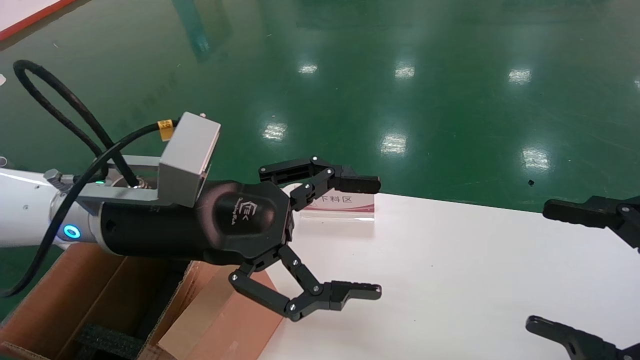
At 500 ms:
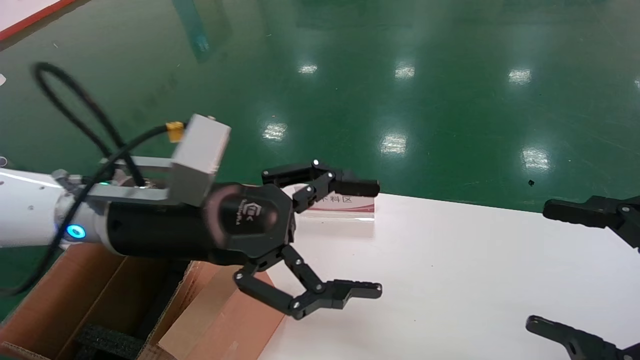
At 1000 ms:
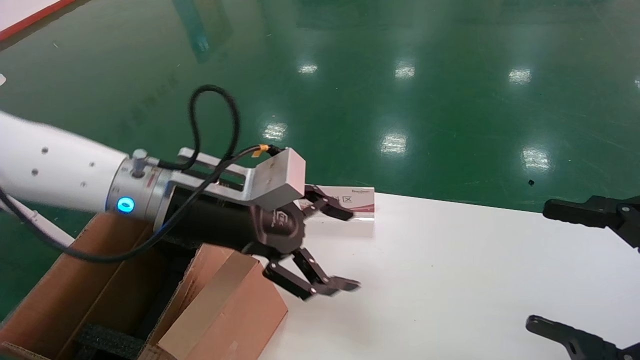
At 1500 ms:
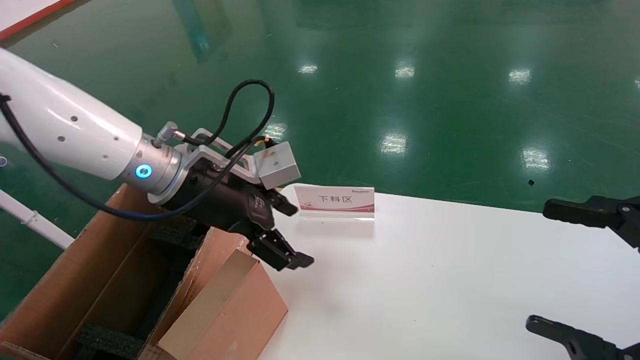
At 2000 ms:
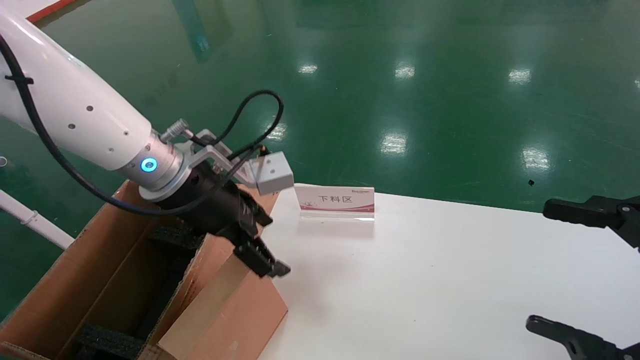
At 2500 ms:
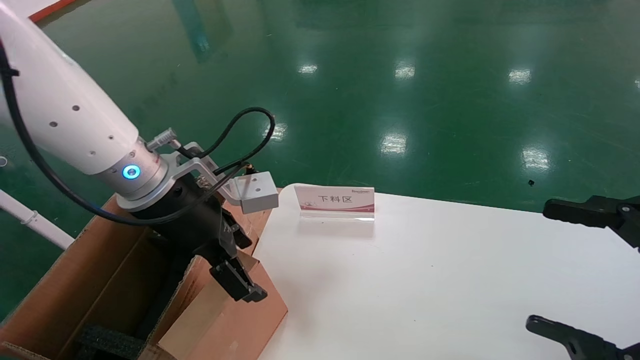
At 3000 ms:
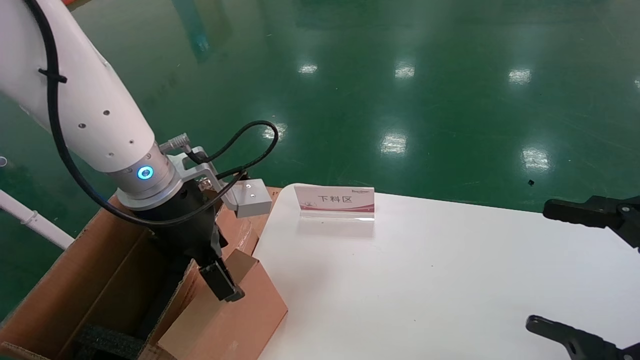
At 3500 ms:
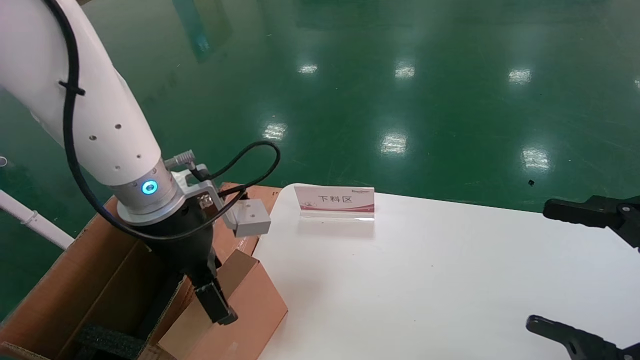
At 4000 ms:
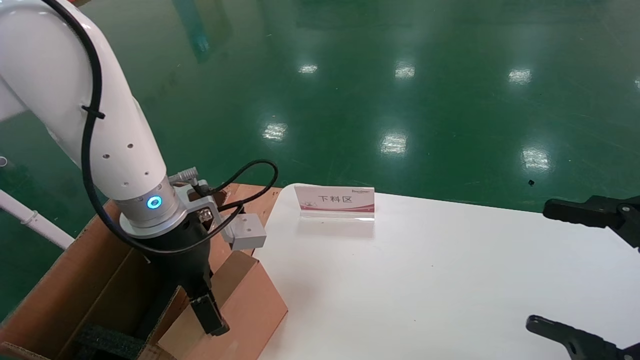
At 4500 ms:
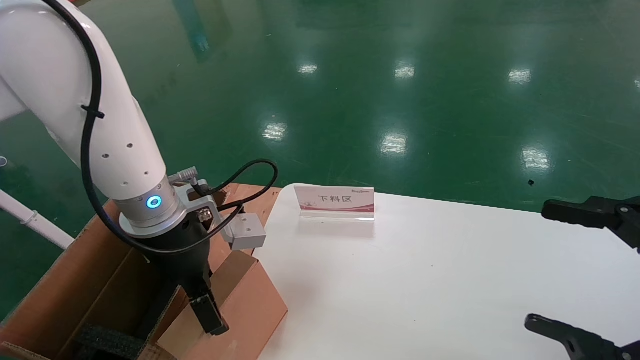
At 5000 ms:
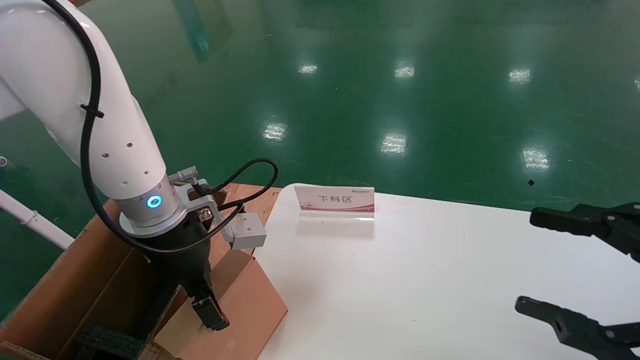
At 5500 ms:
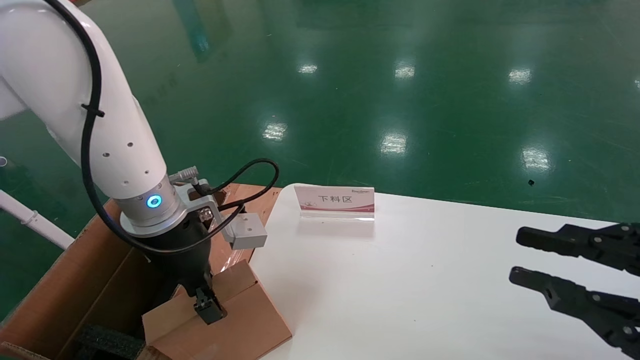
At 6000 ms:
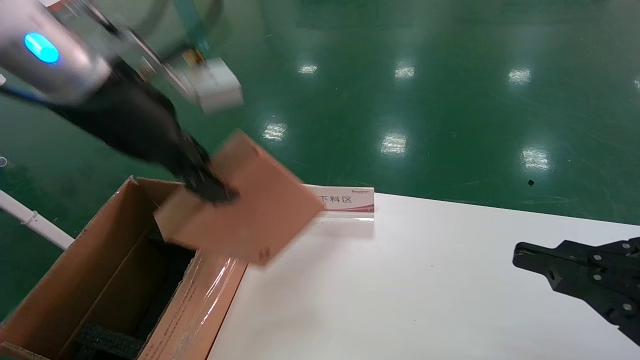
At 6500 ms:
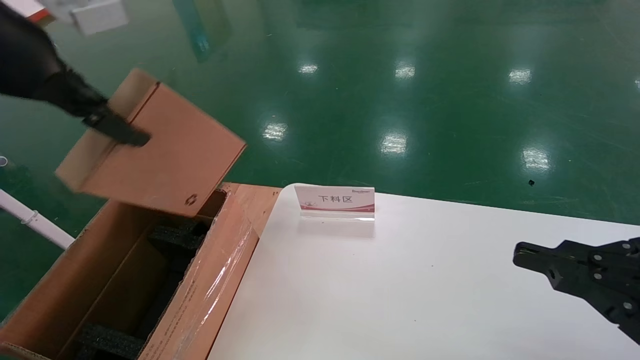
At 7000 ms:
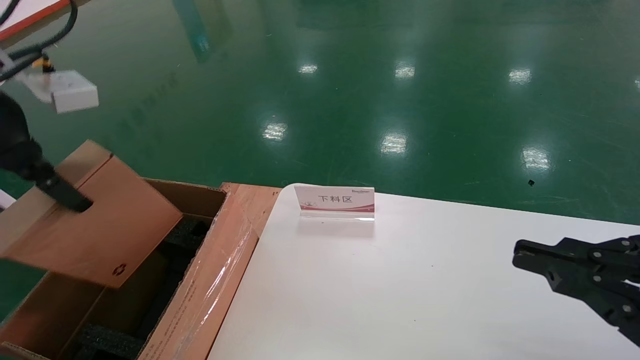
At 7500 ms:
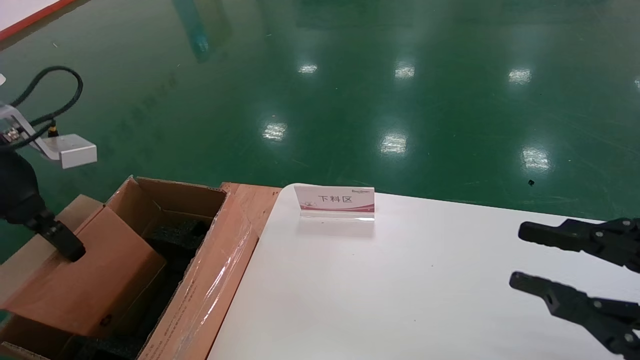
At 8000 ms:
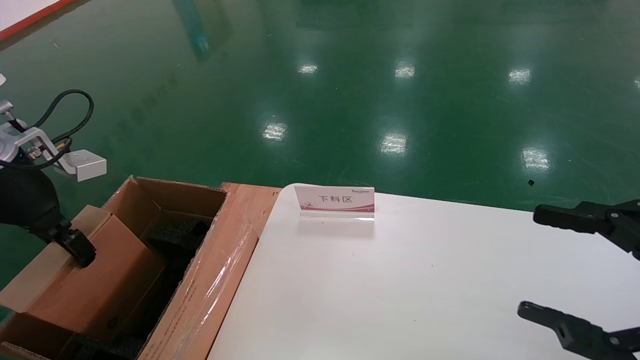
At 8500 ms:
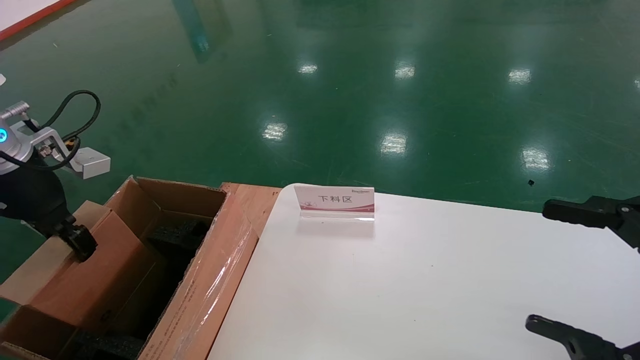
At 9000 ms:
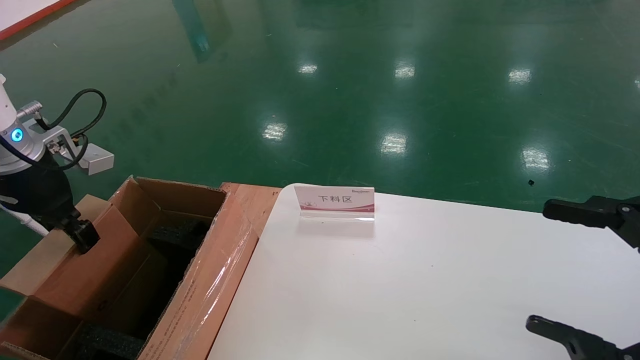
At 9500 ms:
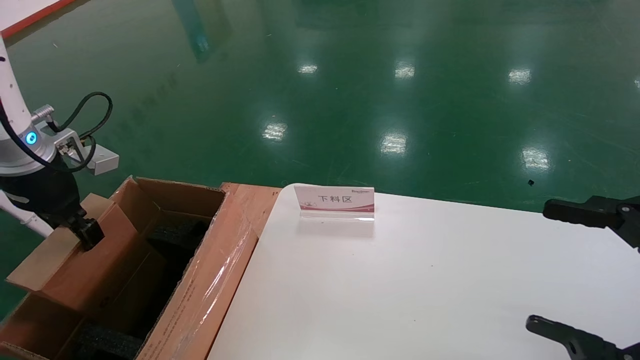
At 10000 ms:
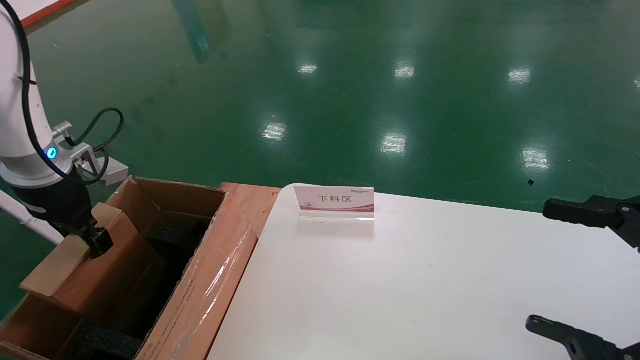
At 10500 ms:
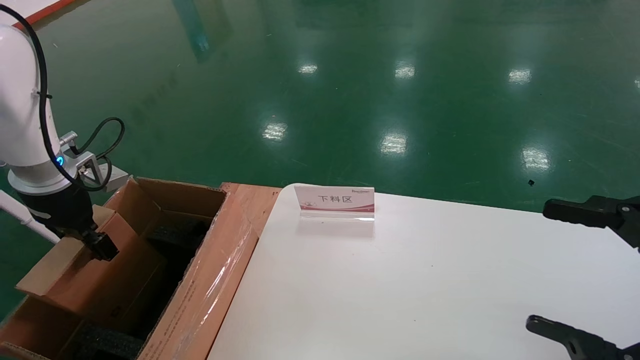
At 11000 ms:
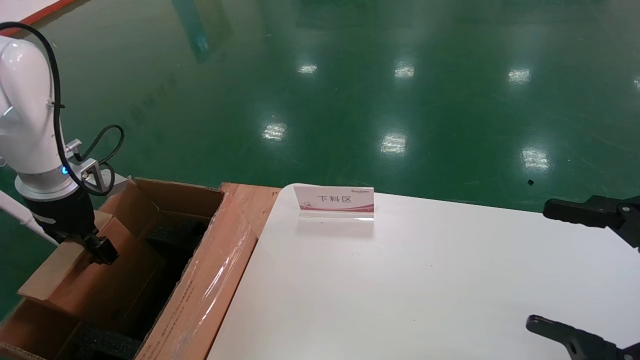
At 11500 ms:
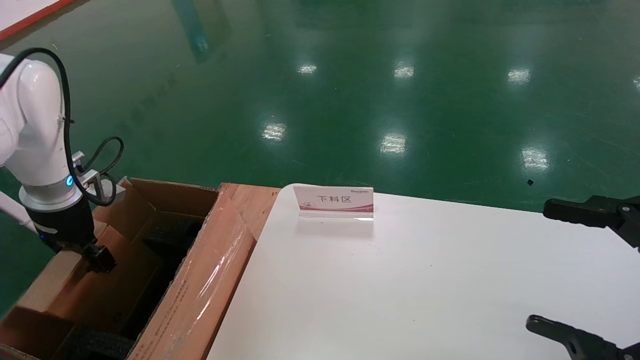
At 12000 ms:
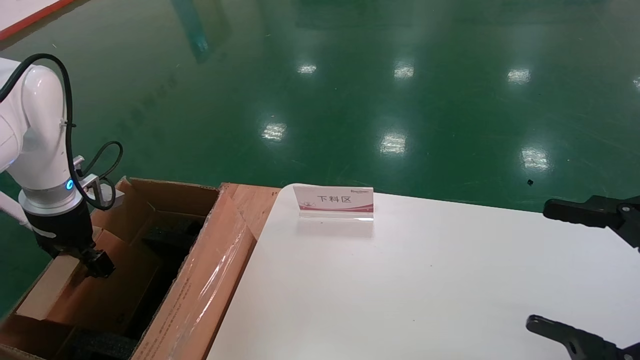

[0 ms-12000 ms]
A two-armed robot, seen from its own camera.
Task of the whole recording: pick up the small cardboard box and load it into the large cardboard box.
Step, 1000 ms to 5000 ms: Pick up the mouse and power cord box.
0 ms to 2000 ms: The left gripper is displaced forward by roughly 5 cm.
4000 ms to 6000 ms: The right gripper closes its fingers. Meanwhile the left gripper shifts roughly 15 cm upward, and closes its fingers.
6000 ms to 8000 ms: The right gripper opens up, while the left gripper moves to the left and downward, roughly 20 cm.
8000 ms to 10000 ms: The left gripper heads forward, covering approximately 5 cm.
10000 ms to 12000 ms: The left gripper shifts roughly 5 cm downward.

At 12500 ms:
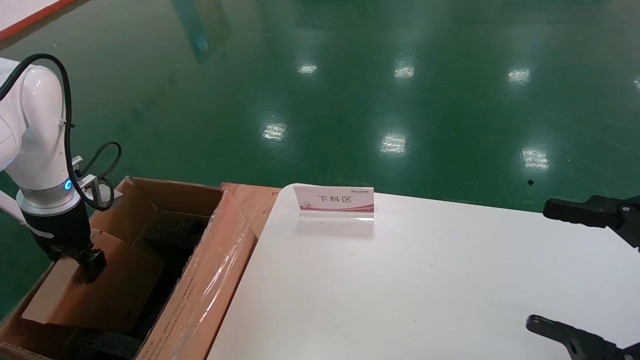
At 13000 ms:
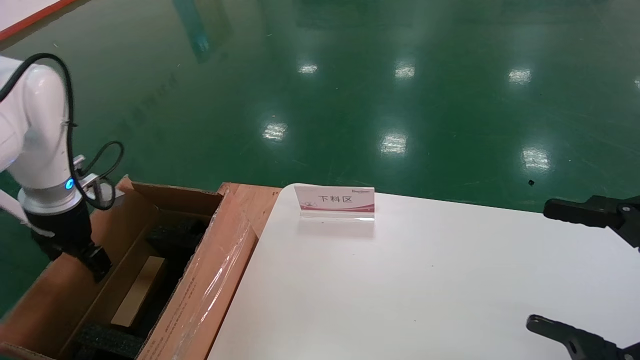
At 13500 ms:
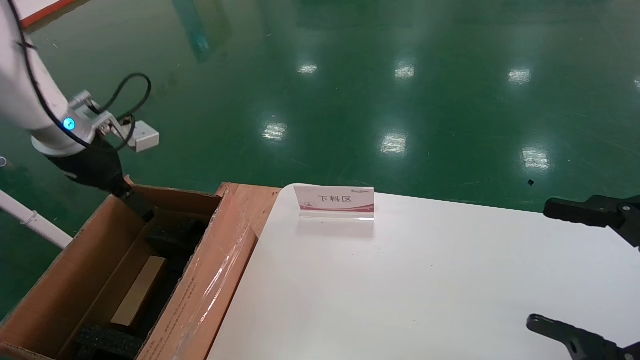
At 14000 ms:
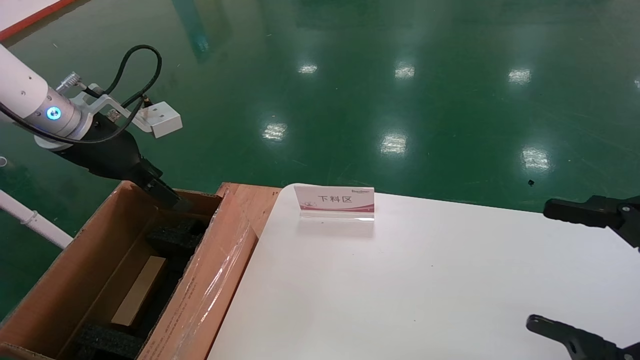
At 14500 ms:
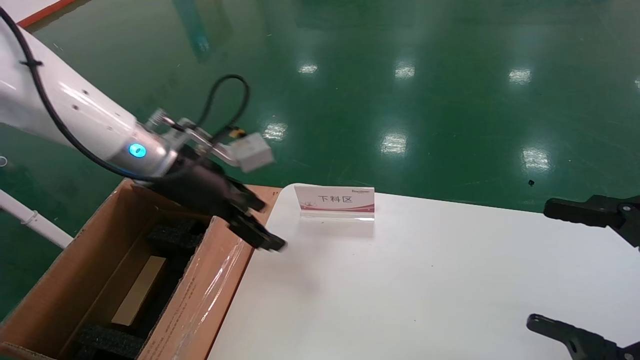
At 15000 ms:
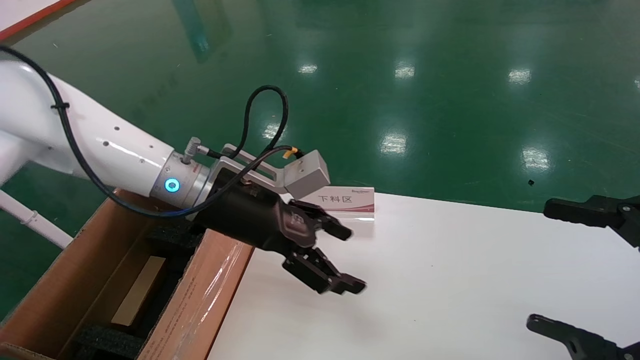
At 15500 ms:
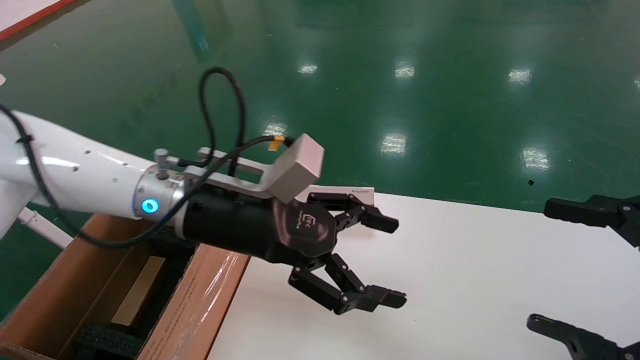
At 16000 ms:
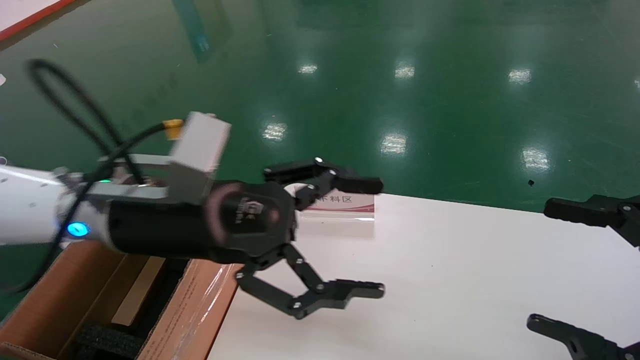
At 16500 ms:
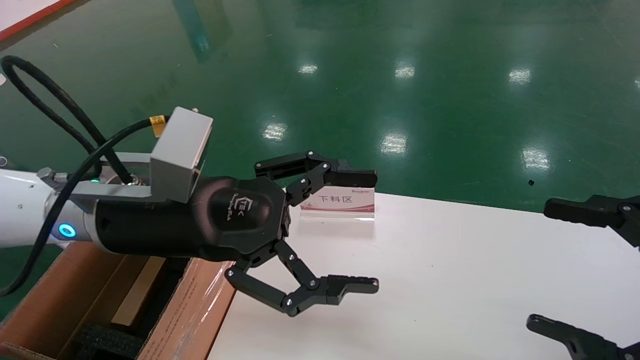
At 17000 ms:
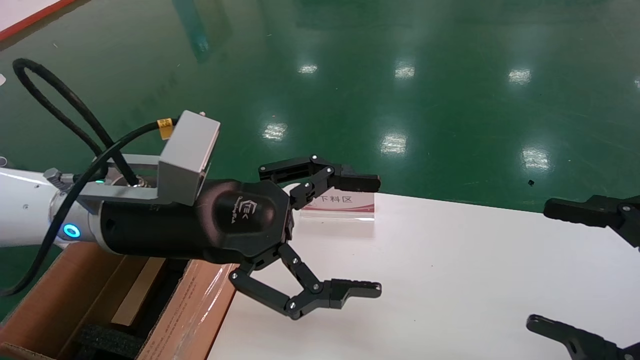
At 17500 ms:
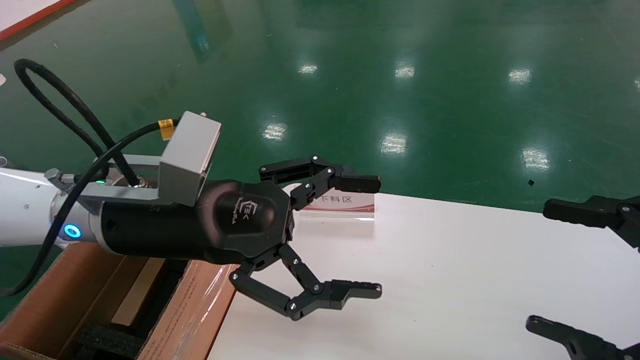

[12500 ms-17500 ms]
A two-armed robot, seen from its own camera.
Task of the whole recording: pick up the small cardboard box and load it into the large cardboard box.
12500 ms to 15000 ms: The left gripper moves to the right, approximately 30 cm, and opens its fingers.
15000 ms to 17500 ms: The left gripper goes roughly 10 cm backward.

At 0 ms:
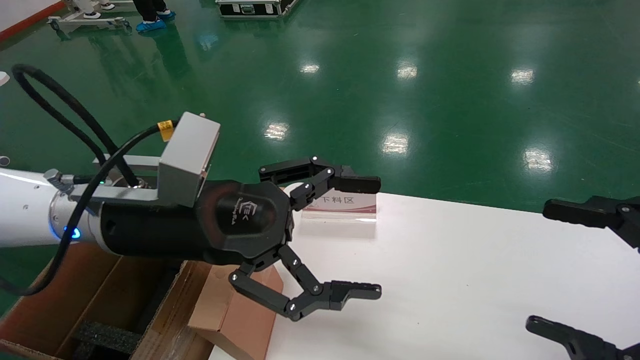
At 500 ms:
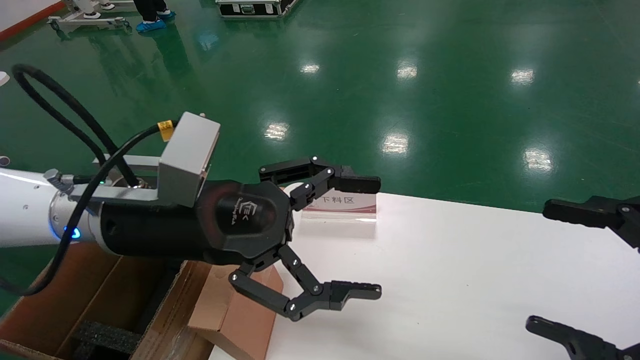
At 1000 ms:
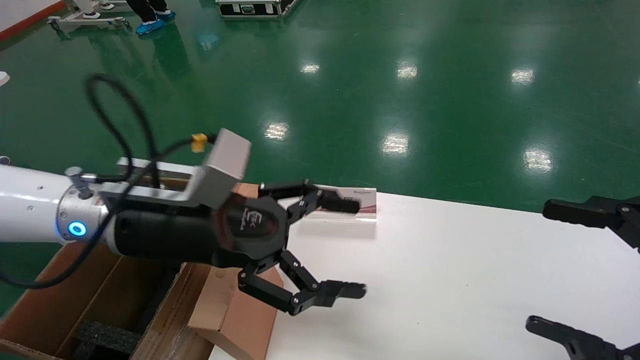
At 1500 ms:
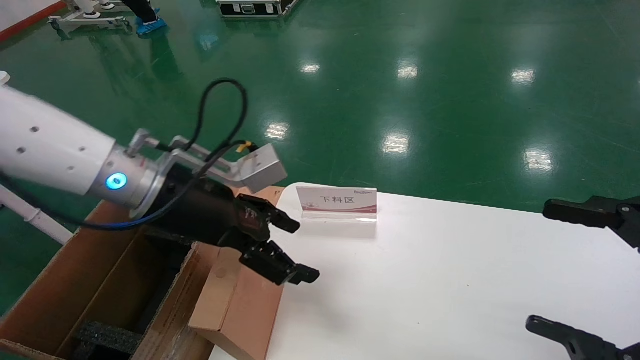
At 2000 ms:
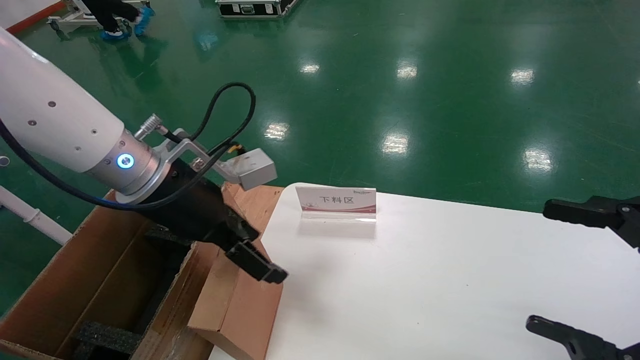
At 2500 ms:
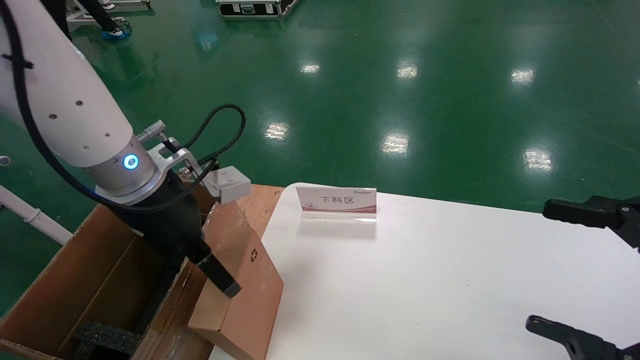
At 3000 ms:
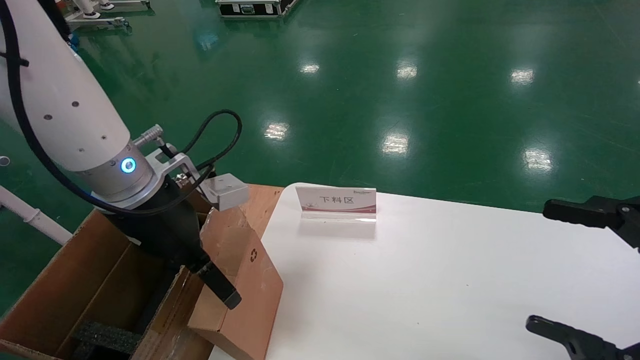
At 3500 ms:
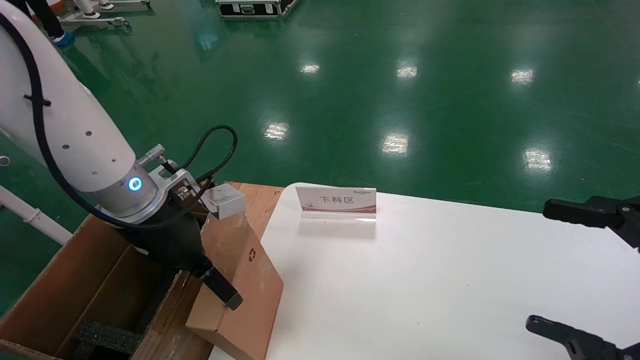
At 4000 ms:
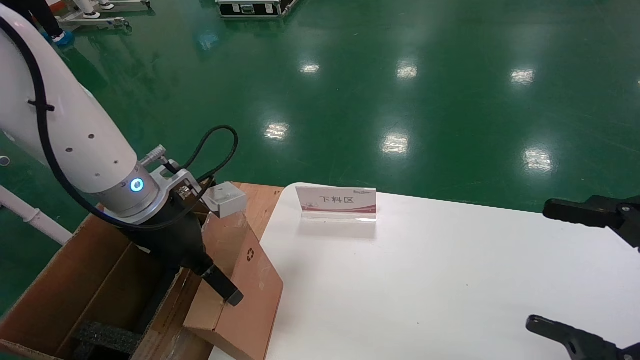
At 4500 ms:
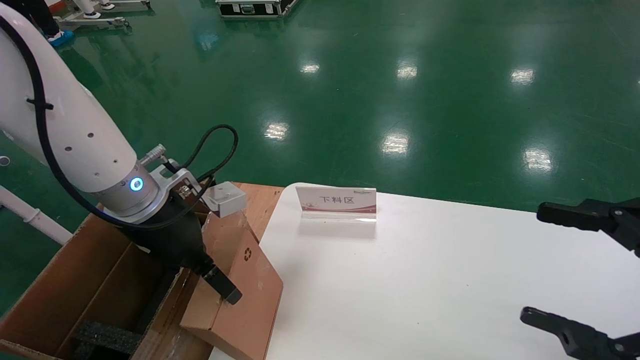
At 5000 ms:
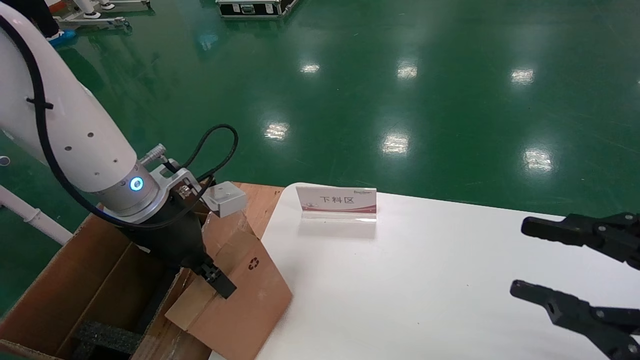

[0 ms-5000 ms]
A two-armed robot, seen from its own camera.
Task of the whole recording: pick up the small cardboard box and load it into the large cardboard box.
0 ms to 2500 ms: The left gripper ends up approximately 5 cm from where it was.
2500 ms to 5000 ms: The right gripper closes its fingers; the left gripper closes up.
